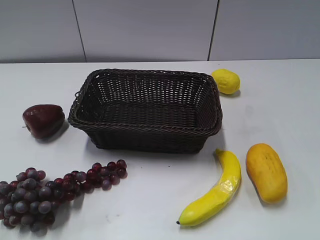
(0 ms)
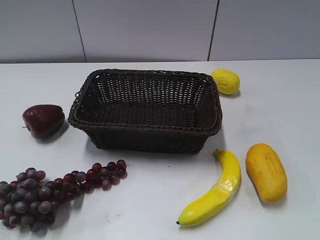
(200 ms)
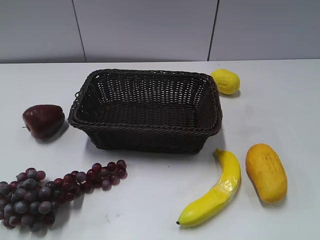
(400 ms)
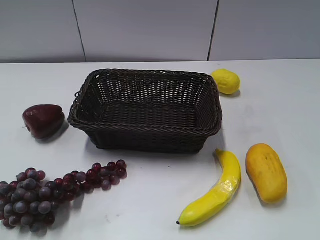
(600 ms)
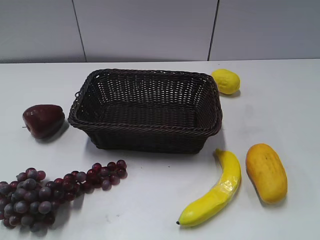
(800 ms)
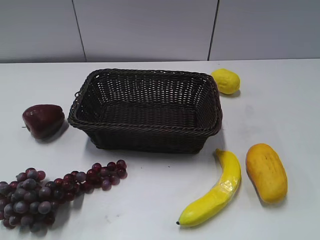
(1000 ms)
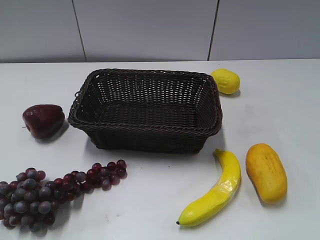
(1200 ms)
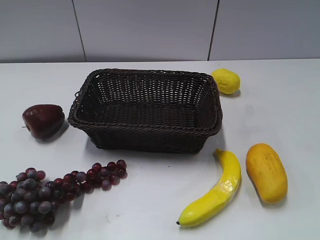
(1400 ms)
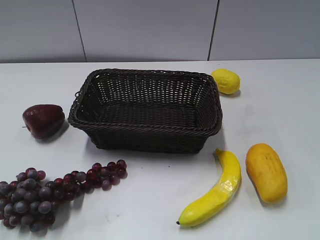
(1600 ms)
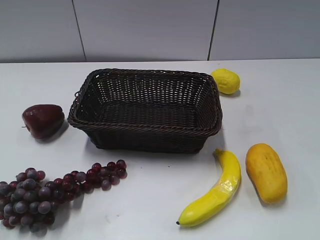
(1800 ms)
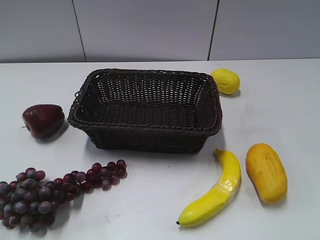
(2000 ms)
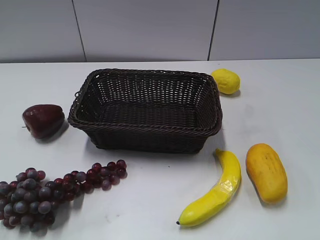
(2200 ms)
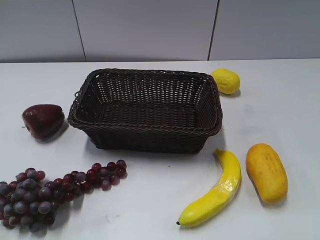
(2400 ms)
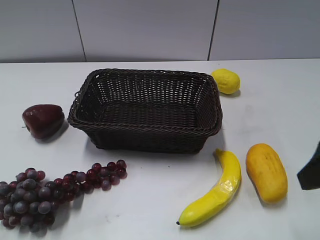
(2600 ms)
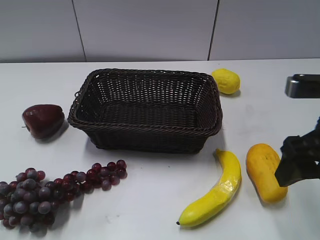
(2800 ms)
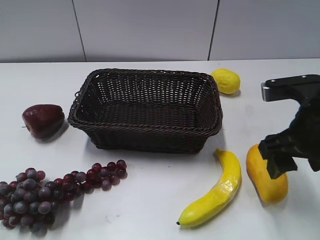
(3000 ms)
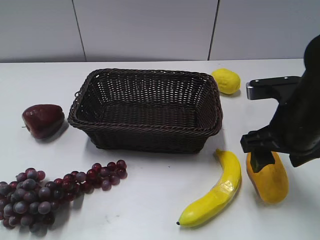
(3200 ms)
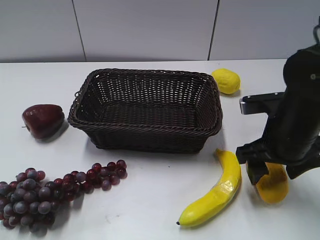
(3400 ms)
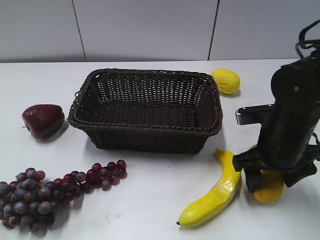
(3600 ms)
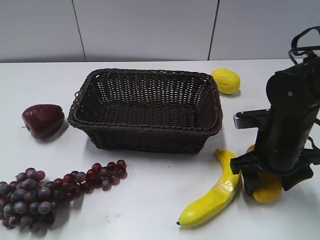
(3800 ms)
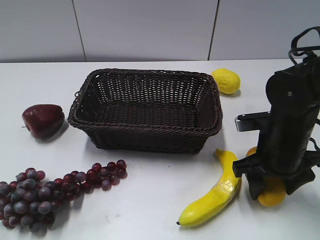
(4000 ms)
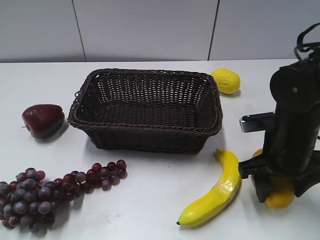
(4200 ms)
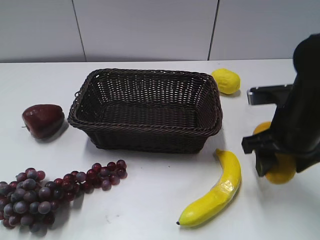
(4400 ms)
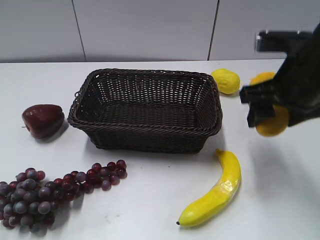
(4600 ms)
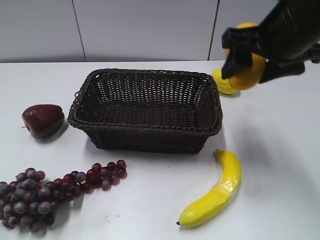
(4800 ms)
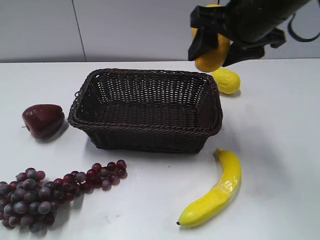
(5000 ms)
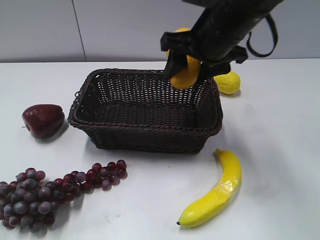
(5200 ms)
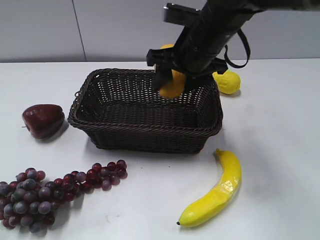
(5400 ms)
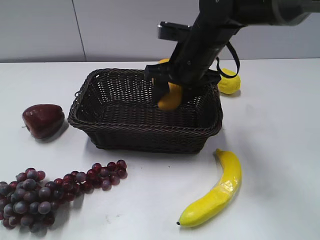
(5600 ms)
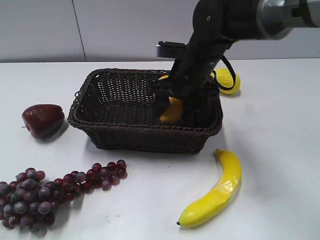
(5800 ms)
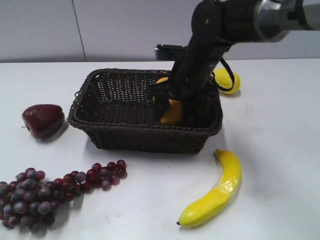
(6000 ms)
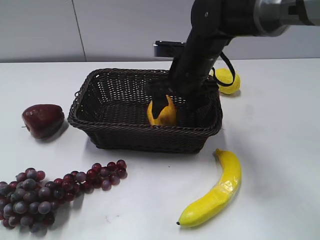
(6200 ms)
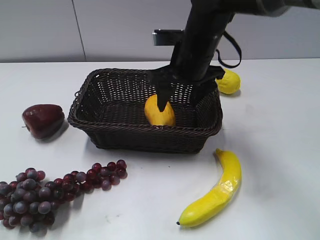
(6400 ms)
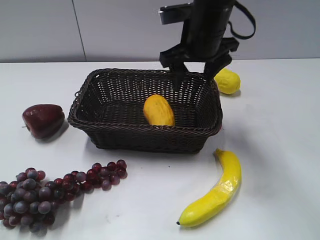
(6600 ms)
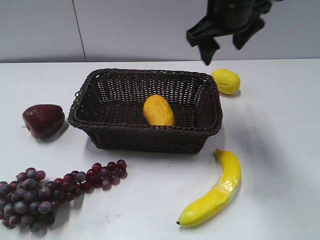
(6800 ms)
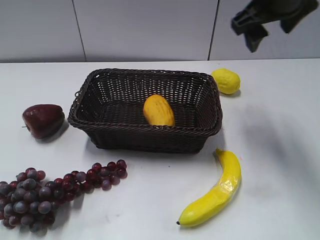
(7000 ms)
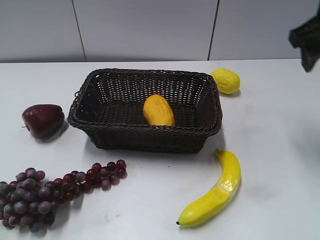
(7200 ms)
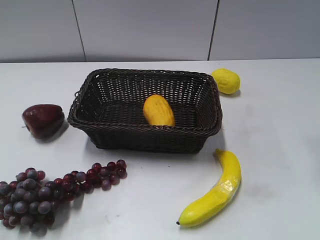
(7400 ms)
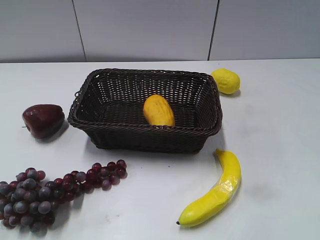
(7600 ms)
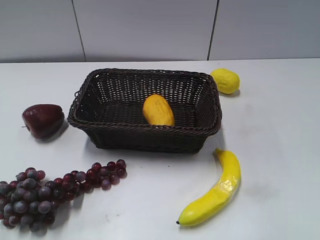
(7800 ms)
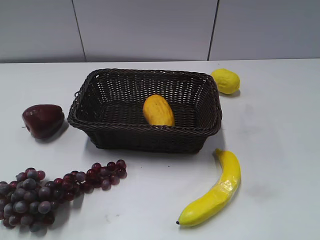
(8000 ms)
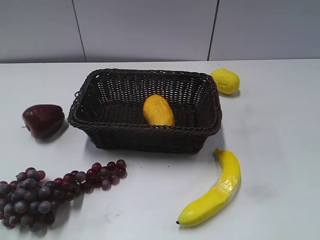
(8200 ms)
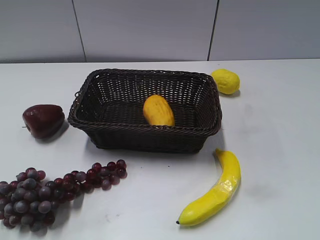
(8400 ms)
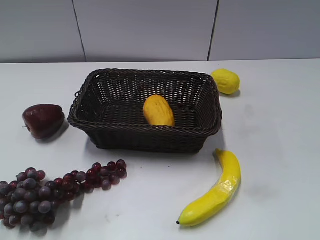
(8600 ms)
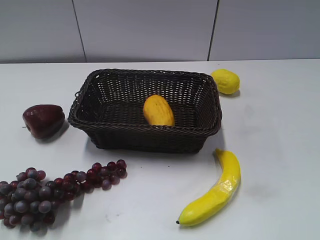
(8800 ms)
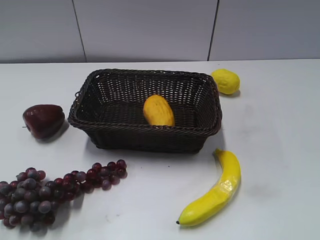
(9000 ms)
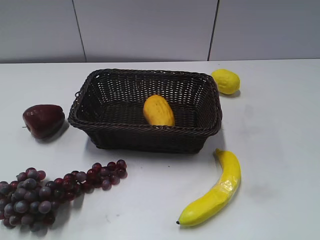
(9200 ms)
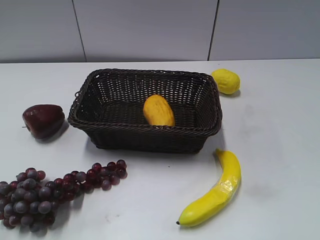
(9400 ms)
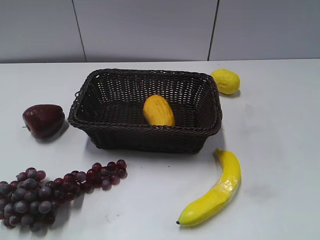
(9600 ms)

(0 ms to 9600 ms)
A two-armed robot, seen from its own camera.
Step, 2600 ms - 3800 ms: Grasp the mango with right gripper.
Step, 4000 ms - 6200 ms: Place the mango in the basket with right gripper.
1600 ms - 3200 ms: The right gripper is displaced forward and to the left by roughly 25 cm, and opens its fingers.
3200 ms - 4800 ms: The right gripper goes some 10 cm upward, and closes its fingers.
4800 ms - 6400 ms: The right gripper shifts roughly 15 cm to the left, downward and forward, and opens up.
6400 ms - 8000 ms: The right gripper goes some 35 cm backward and to the right.

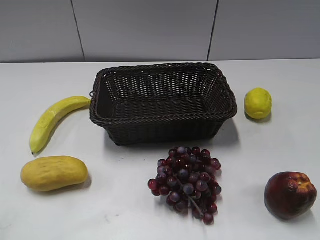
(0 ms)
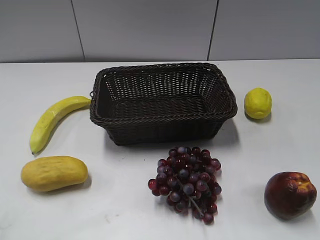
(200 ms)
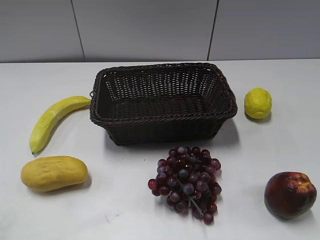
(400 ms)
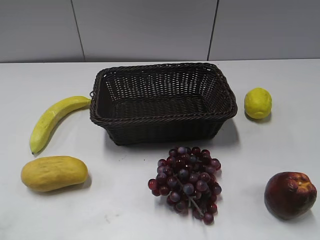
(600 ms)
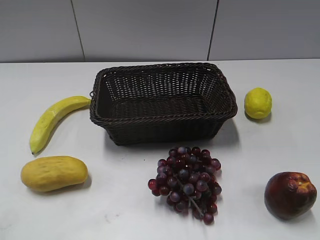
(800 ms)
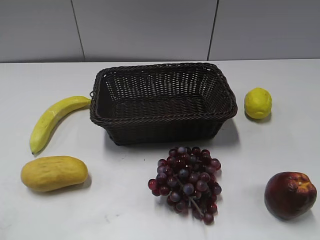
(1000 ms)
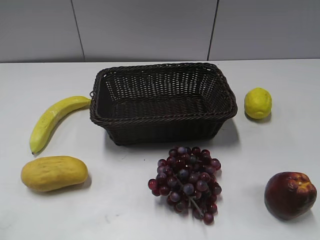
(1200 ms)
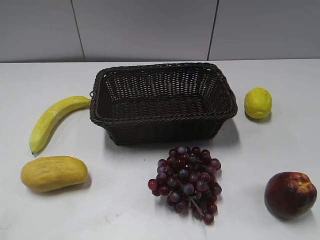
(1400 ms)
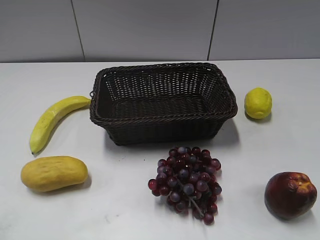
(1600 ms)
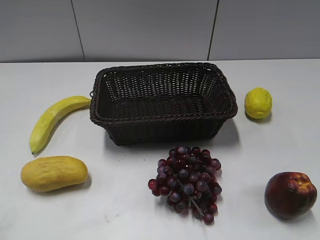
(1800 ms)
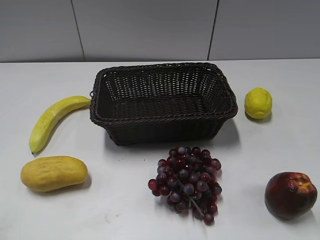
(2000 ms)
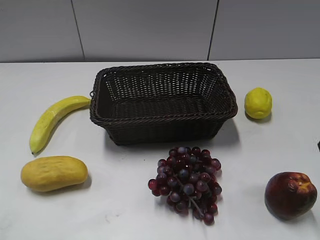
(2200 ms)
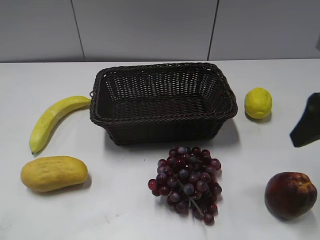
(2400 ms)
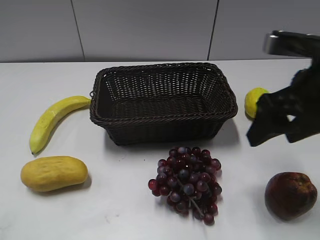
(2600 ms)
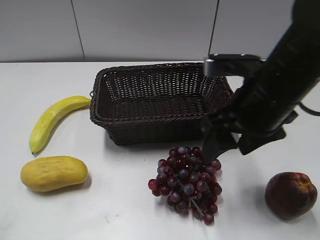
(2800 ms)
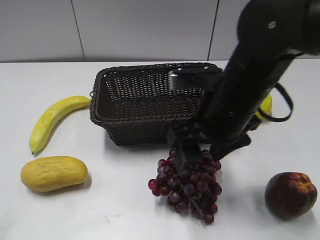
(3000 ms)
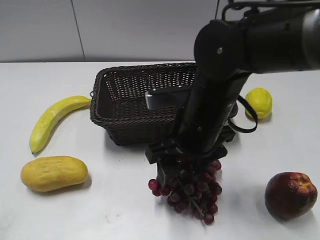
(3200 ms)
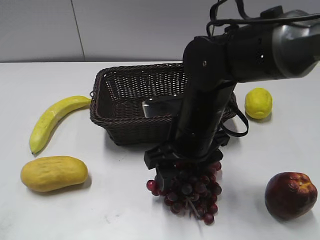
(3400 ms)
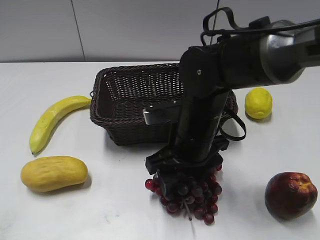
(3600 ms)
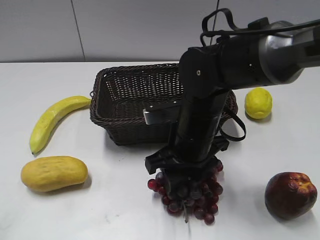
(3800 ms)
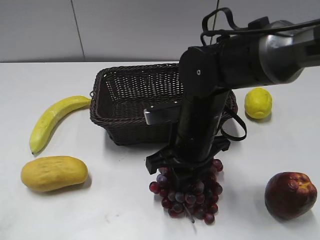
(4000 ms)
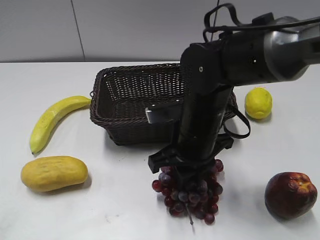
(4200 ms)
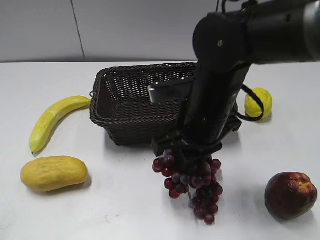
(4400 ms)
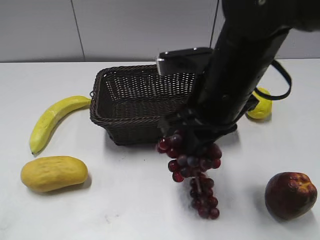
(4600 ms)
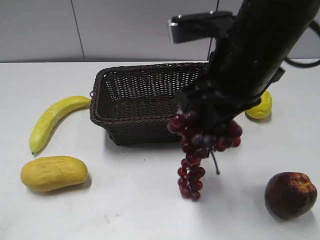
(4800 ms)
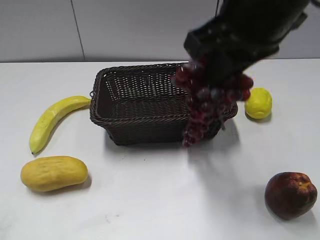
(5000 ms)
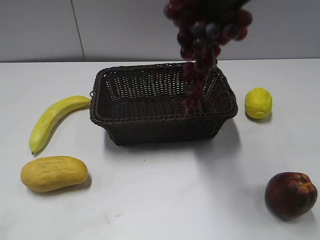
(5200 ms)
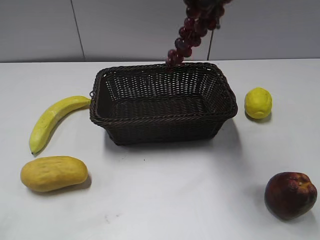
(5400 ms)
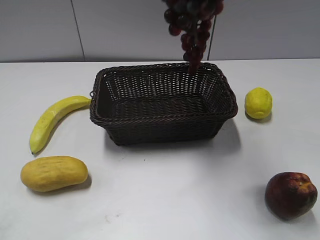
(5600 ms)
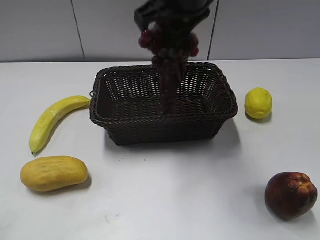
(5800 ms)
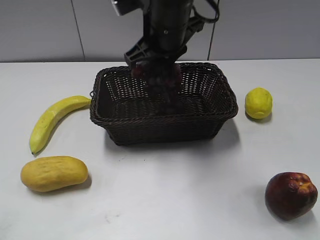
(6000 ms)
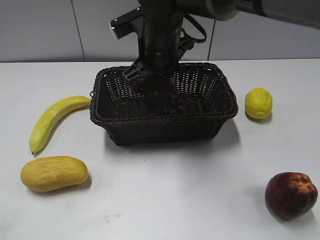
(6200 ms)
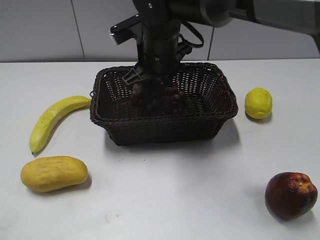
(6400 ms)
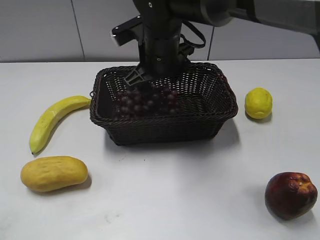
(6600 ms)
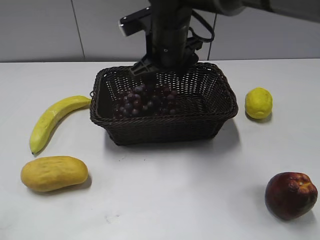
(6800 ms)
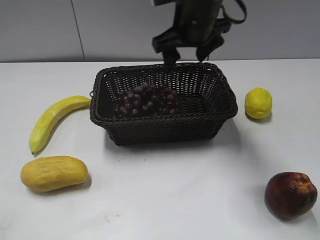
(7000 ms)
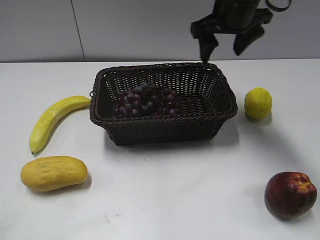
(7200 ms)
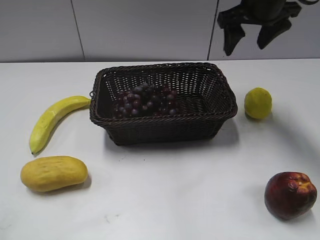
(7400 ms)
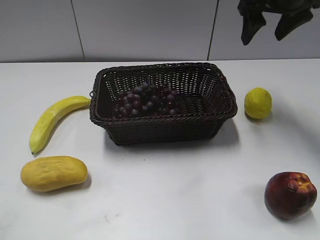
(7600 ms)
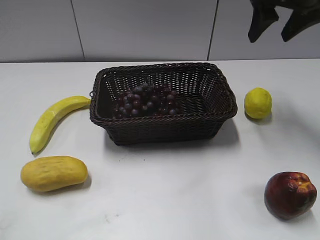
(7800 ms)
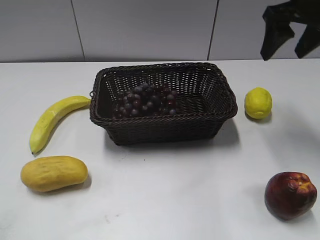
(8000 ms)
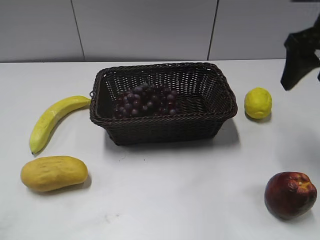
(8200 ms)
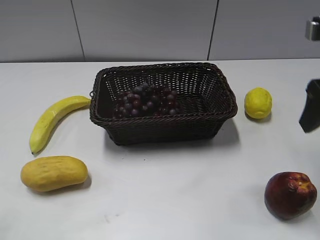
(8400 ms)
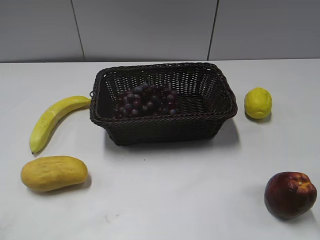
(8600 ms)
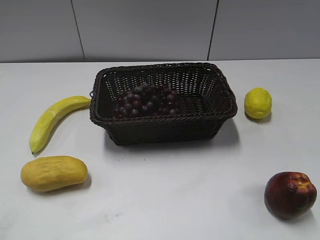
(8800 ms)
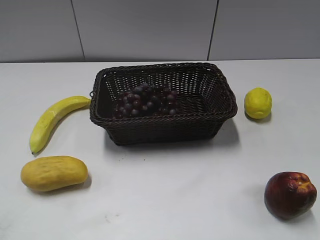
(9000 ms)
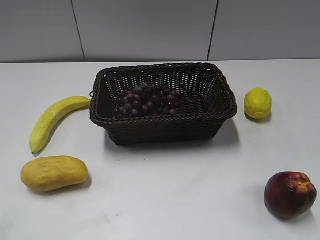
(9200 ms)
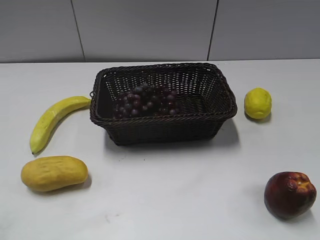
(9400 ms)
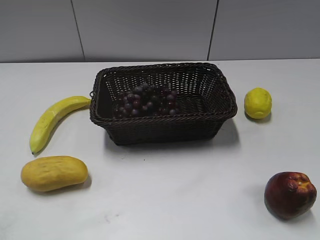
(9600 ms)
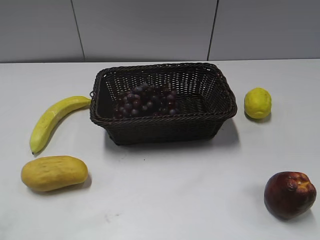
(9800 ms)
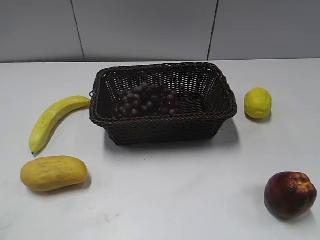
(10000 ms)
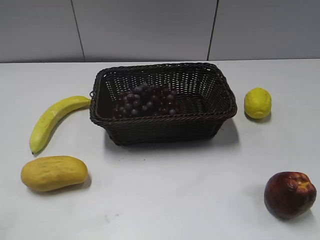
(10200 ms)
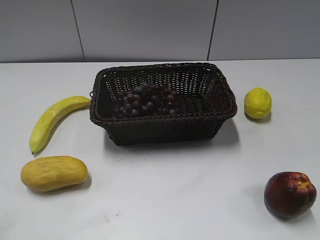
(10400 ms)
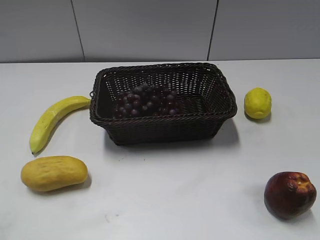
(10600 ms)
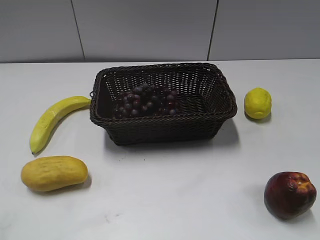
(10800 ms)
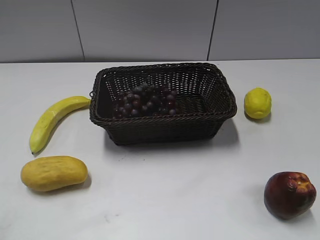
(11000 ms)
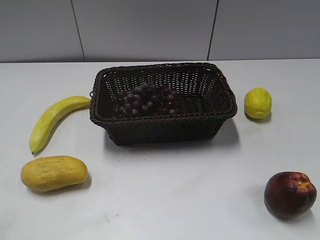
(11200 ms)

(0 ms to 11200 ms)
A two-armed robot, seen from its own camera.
Step, 2200 ms - 3800 ms: Grasp the grape with right gripper.
Step, 4000 ms - 6600 ms: Place the grape in the basket with right gripper.
1600 ms - 3200 ms: The right gripper is displaced to the left, forward and downward by about 30 cm.
3200 ms - 4800 ms: The right gripper shifts roughly 15 cm upward, and closes its fingers.
4800 ms - 6400 ms: The right gripper goes some 20 cm forward, to the left and downward, and opens its fingers.
6400 ms - 8000 ms: The right gripper goes approximately 25 cm to the right and upward.
8000 ms - 9600 ms: The right gripper goes approximately 30 cm backward.
